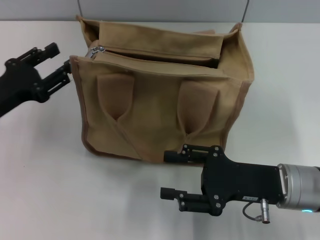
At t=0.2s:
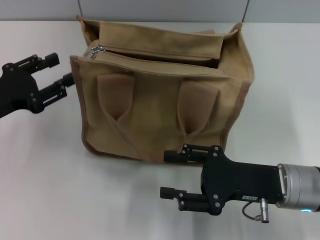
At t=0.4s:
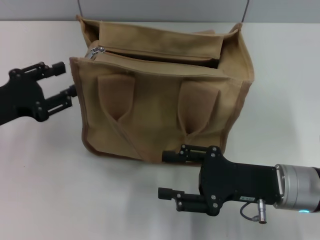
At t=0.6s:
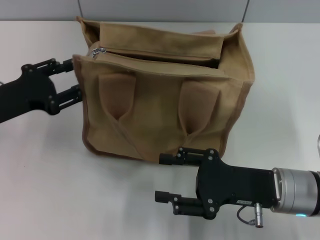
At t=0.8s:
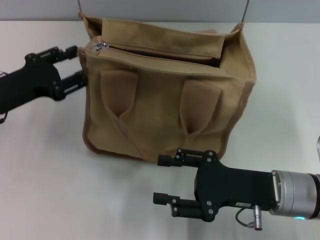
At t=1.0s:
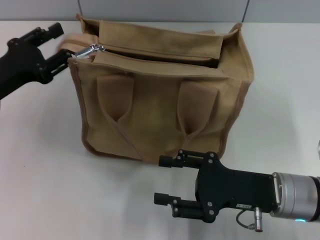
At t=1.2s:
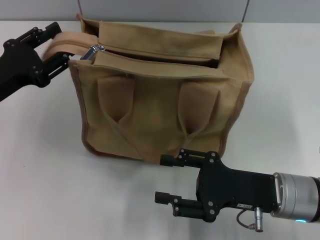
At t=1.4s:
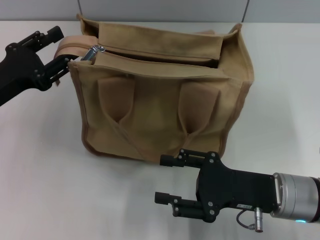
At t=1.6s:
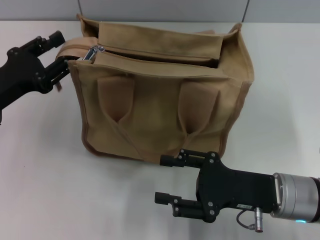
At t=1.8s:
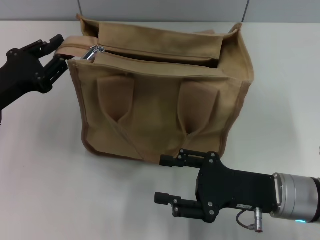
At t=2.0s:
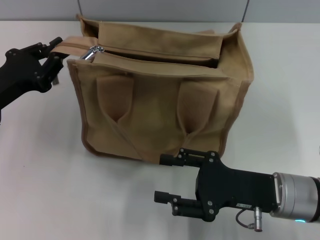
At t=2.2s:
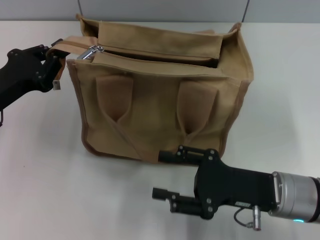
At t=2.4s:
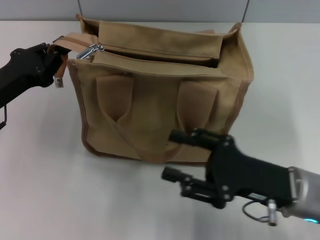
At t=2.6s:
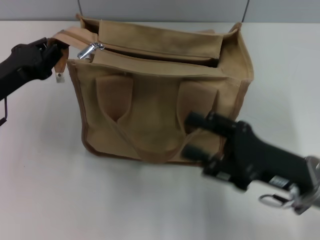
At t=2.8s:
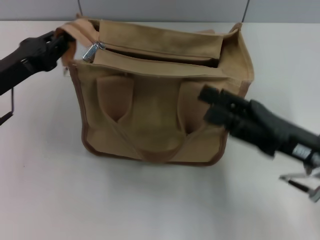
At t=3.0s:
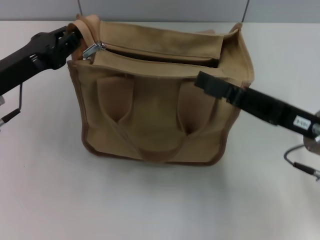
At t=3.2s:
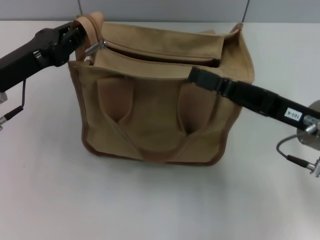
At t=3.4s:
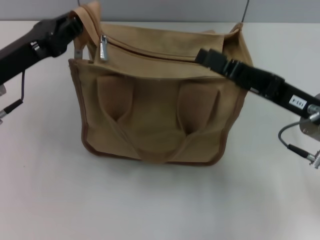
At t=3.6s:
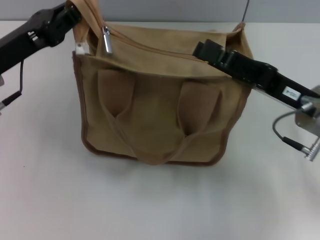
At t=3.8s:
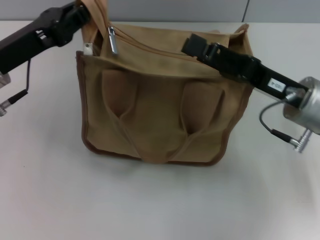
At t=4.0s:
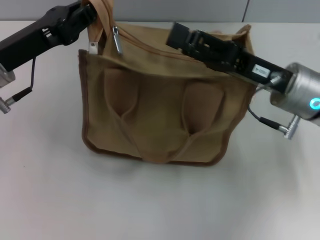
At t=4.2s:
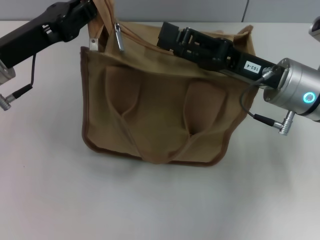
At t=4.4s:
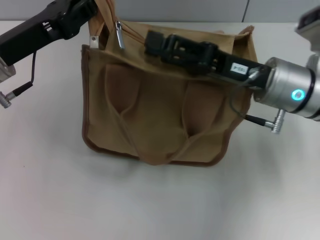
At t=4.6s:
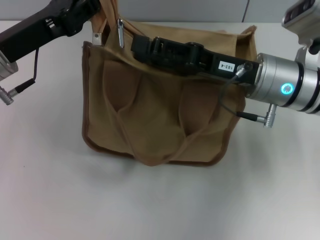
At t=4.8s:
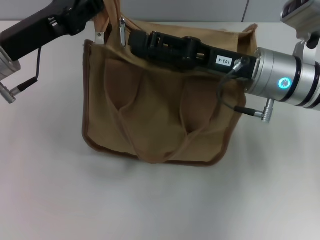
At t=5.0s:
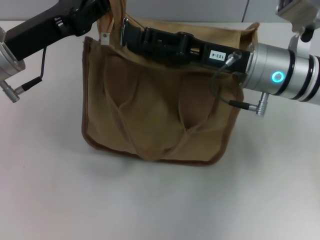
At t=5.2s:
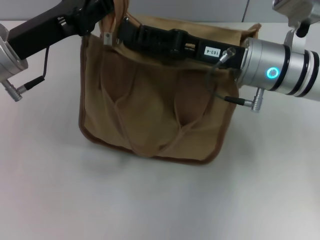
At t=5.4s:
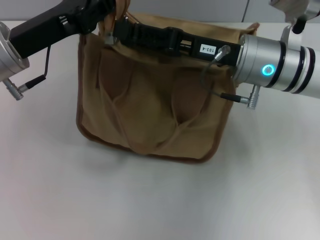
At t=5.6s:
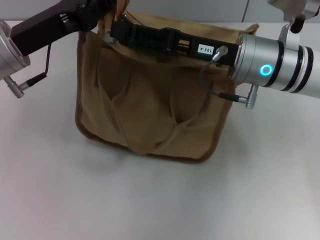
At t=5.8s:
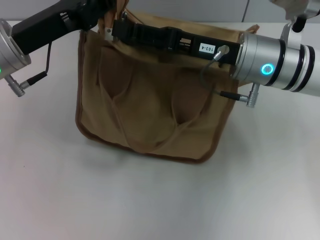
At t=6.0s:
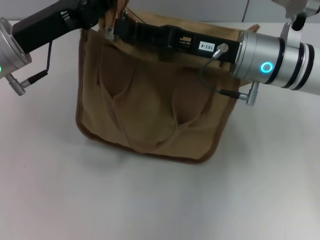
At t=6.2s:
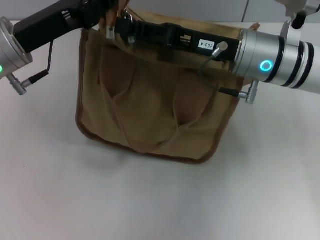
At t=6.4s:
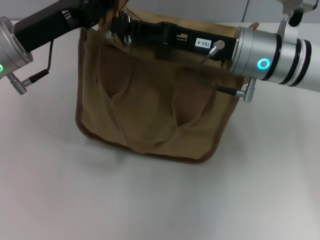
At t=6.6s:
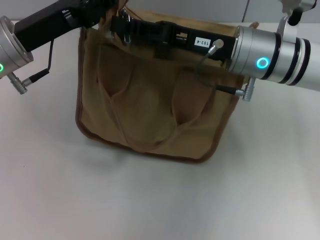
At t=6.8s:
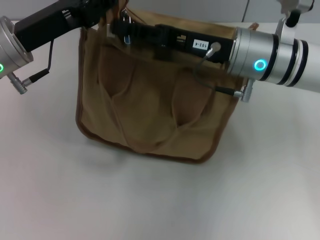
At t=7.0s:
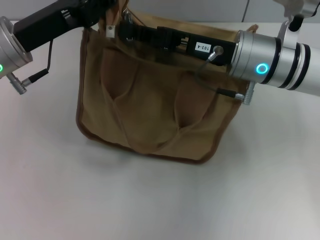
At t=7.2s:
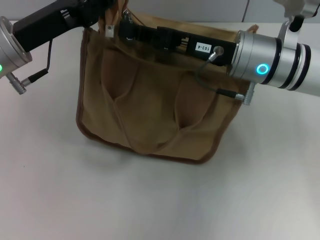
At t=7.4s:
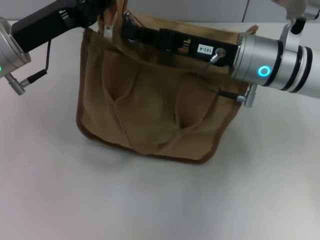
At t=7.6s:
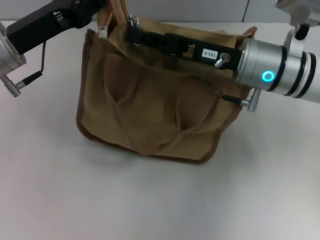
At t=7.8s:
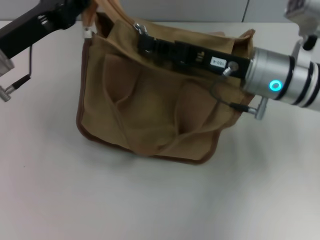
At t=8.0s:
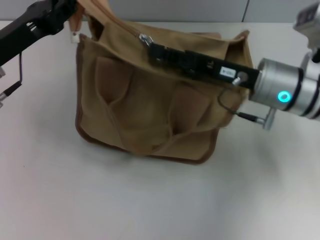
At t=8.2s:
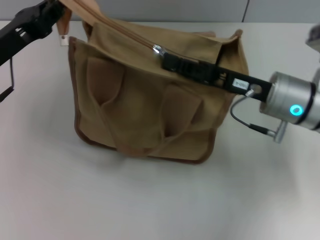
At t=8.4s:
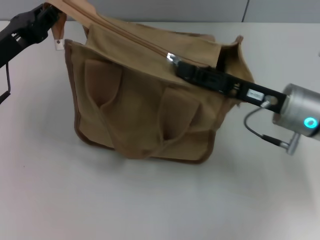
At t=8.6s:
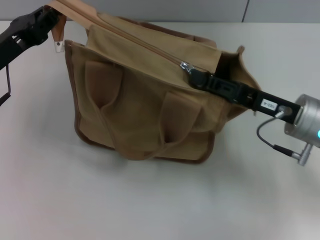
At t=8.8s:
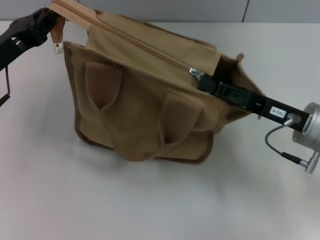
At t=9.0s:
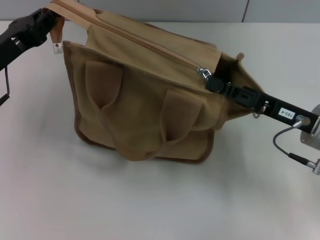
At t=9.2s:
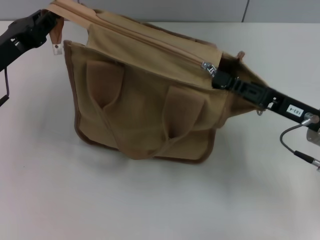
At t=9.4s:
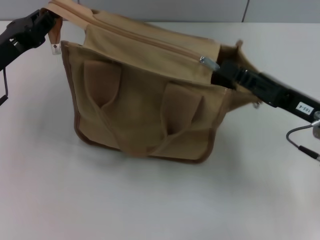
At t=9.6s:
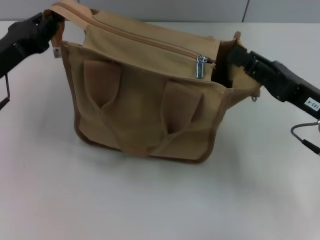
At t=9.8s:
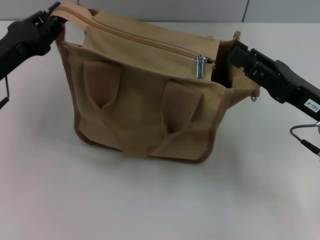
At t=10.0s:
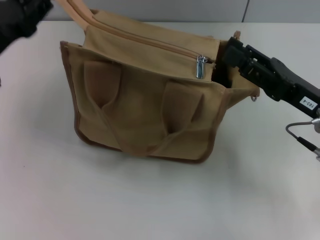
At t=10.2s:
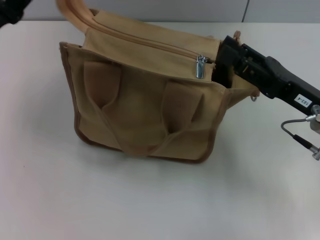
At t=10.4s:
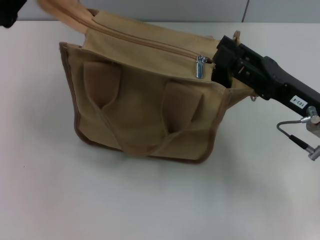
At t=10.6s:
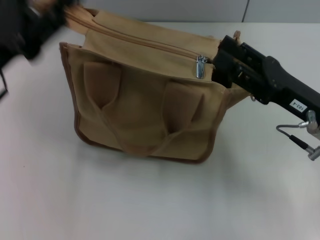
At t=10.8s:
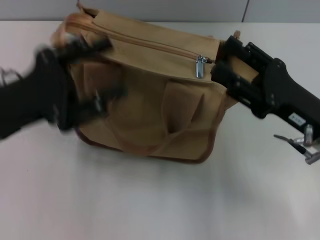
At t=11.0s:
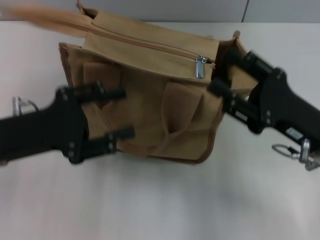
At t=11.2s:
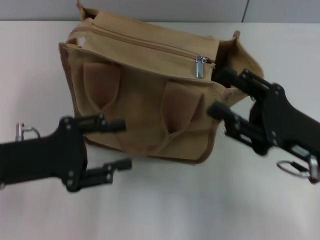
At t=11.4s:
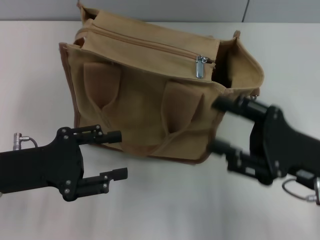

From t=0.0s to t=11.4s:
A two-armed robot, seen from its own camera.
Step, from t=0.0s to t=9.2s: Pull up the zipper with your right hand.
Step, from t=9.6s to t=10.4s: Grab the zipper with your left hand.
From t=0.0s to t=1.4s: There are only small adjustments of the grippers.
From t=1.4s to t=2.8s: The left gripper closes its fingers. Meanwhile the right gripper ends up roughly 5 cm from where it was.
From t=2.8s to t=4.2s: The left gripper moves approximately 5 cm; the right gripper is displaced forward by some 10 cm.
From t=4.2s to t=5.6s: The right gripper ends up approximately 5 cm from where it was.
From t=5.6s to t=7.2s: The right gripper closes.
From t=7.2s to t=8.6s: The right gripper goes approximately 10 cm to the right, backward and downward; the left gripper travels to the left by about 5 cm.
From t=8.6s to t=10.0s: The right gripper opens up.
From t=10.0s to t=11.4s: The left gripper heads backward, covering roughly 10 cm, and opens up. The right gripper moves backward, approximately 5 cm, and opens.

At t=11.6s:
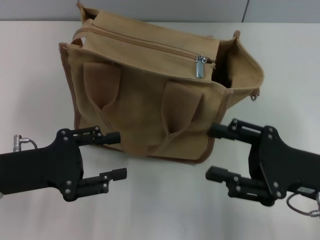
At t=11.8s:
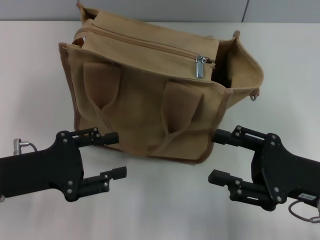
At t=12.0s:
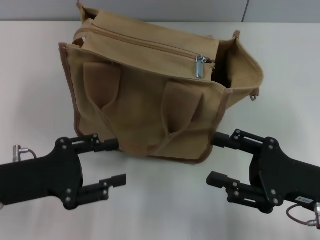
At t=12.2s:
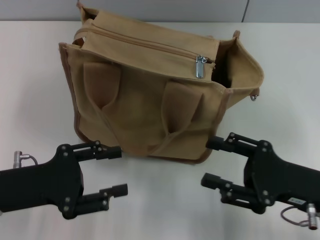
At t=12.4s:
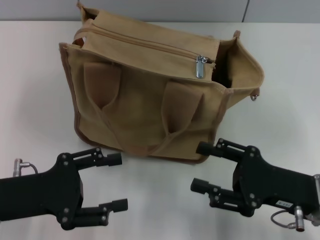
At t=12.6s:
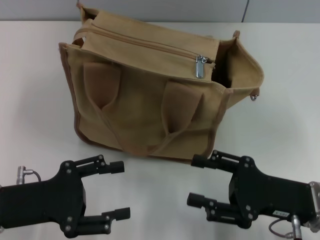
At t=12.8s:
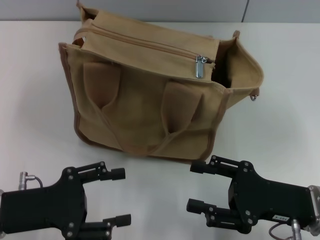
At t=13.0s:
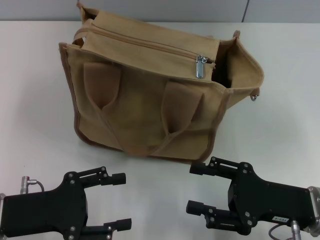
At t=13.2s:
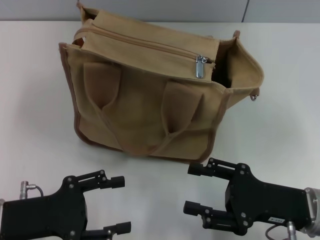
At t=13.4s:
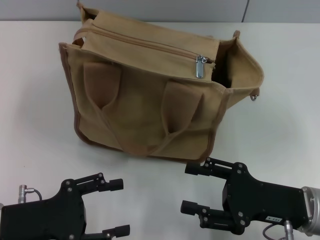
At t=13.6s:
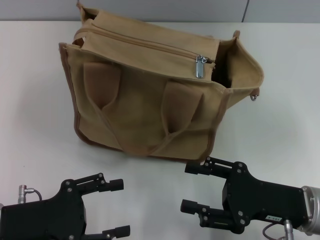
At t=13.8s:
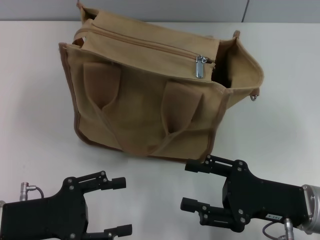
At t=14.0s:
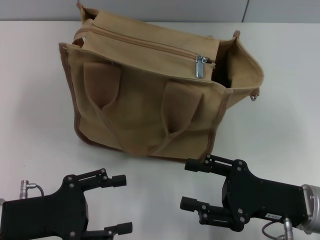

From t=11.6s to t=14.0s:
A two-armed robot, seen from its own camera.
From t=12.8s to t=14.0s: The grippers make only small movements.
